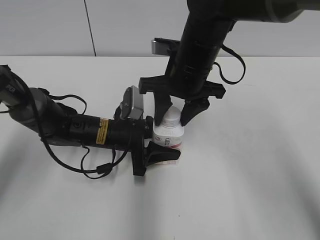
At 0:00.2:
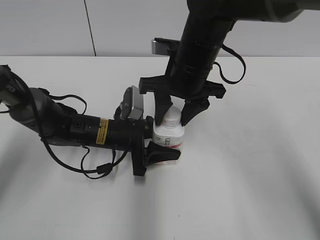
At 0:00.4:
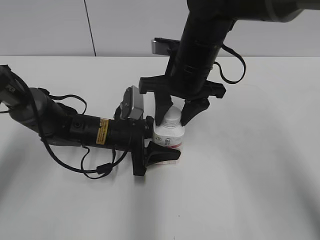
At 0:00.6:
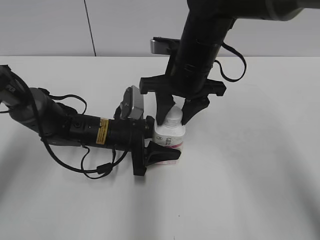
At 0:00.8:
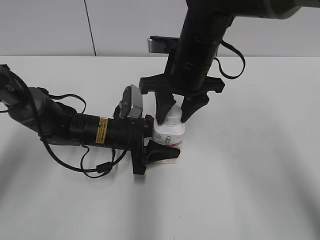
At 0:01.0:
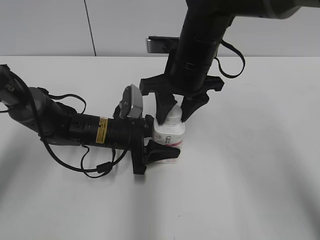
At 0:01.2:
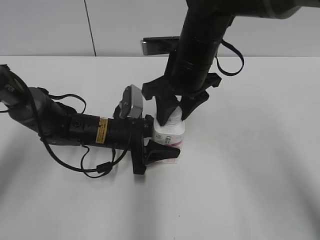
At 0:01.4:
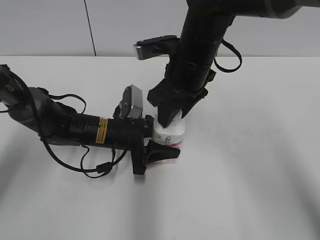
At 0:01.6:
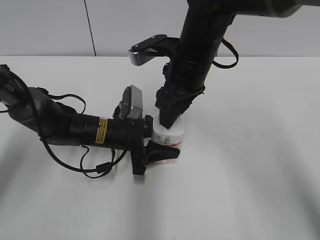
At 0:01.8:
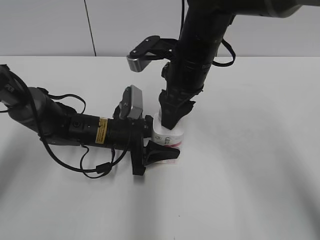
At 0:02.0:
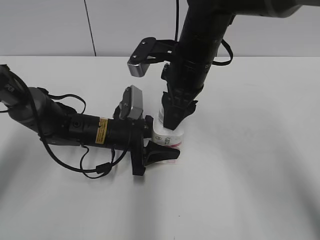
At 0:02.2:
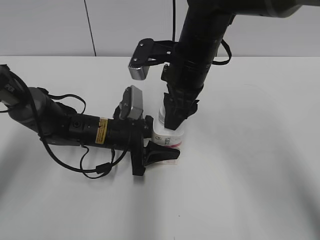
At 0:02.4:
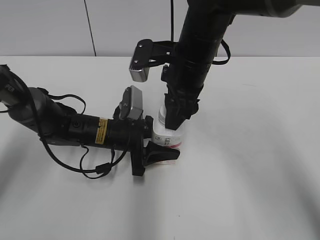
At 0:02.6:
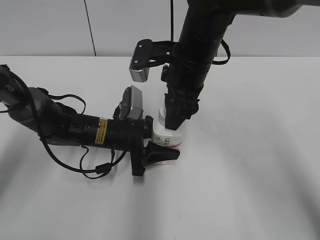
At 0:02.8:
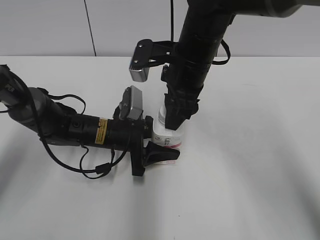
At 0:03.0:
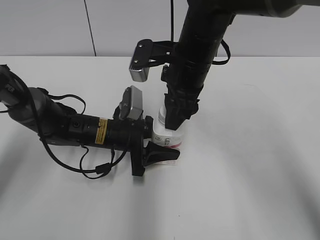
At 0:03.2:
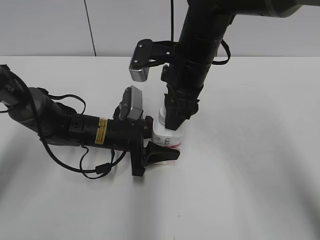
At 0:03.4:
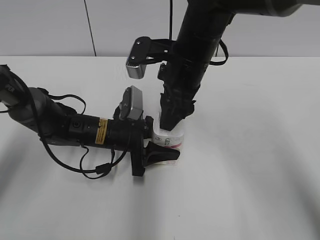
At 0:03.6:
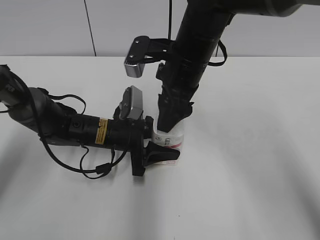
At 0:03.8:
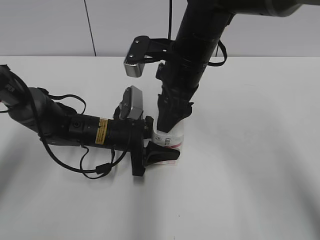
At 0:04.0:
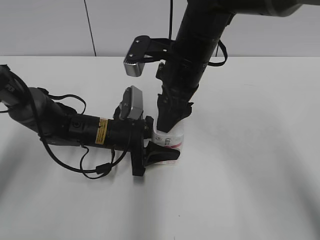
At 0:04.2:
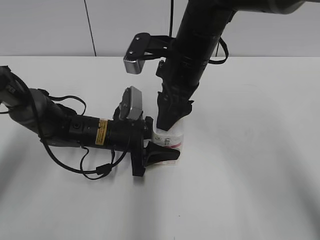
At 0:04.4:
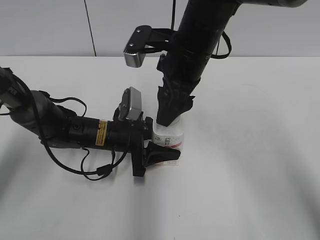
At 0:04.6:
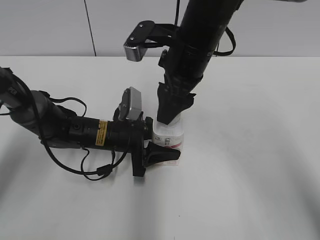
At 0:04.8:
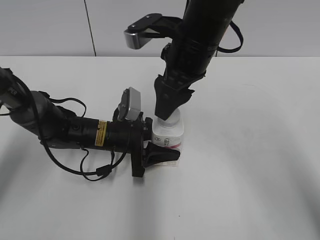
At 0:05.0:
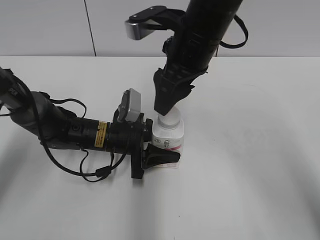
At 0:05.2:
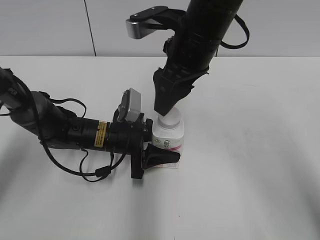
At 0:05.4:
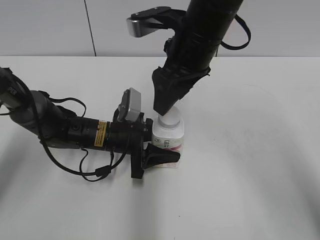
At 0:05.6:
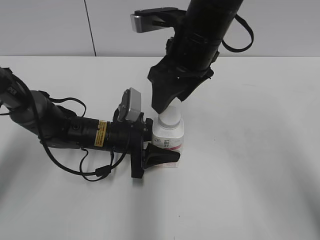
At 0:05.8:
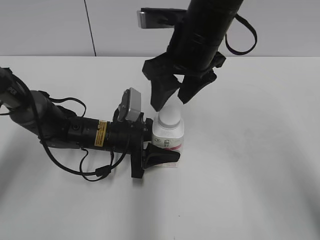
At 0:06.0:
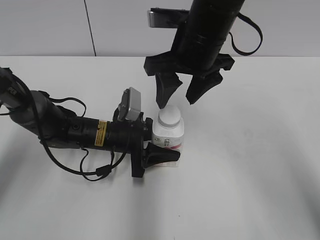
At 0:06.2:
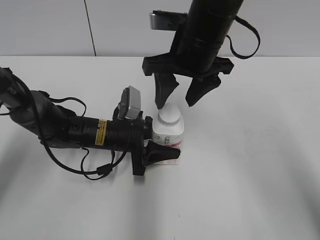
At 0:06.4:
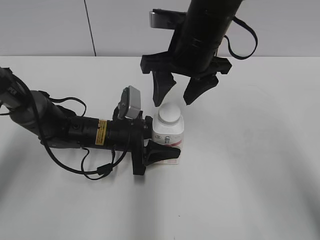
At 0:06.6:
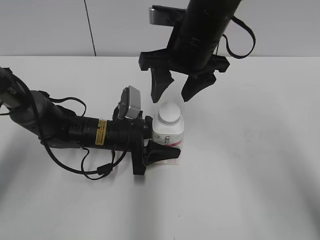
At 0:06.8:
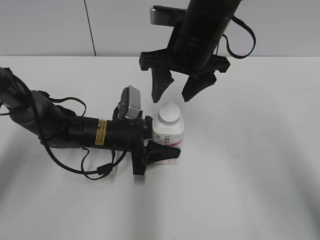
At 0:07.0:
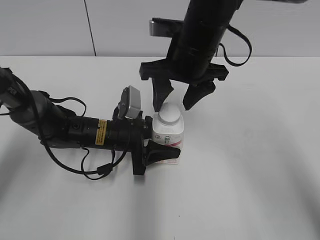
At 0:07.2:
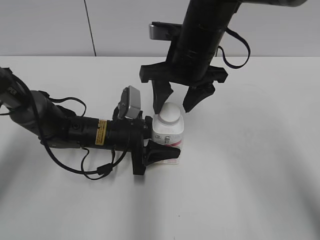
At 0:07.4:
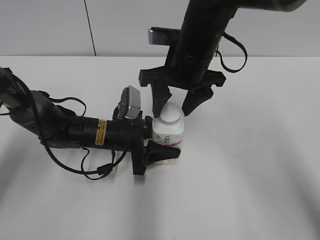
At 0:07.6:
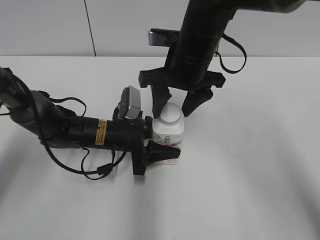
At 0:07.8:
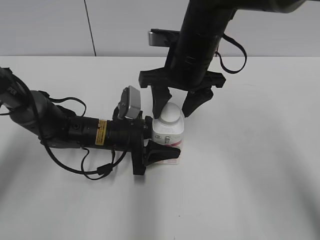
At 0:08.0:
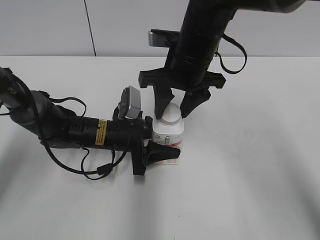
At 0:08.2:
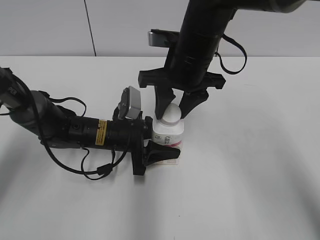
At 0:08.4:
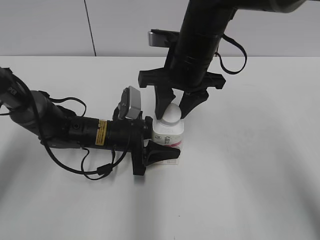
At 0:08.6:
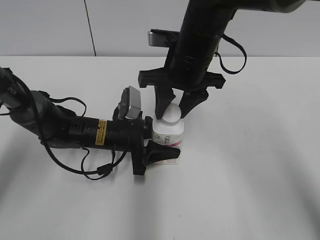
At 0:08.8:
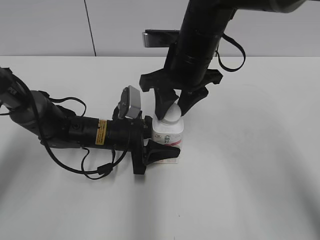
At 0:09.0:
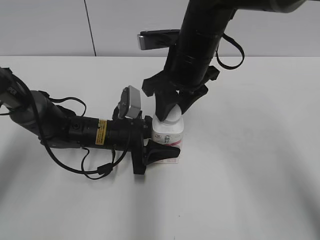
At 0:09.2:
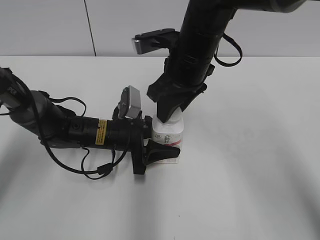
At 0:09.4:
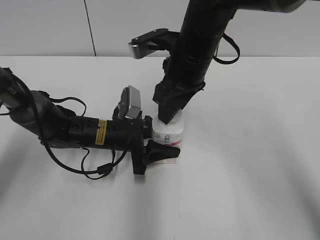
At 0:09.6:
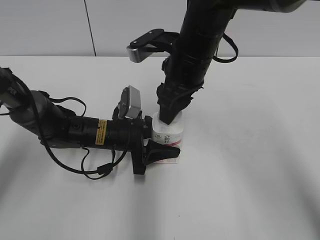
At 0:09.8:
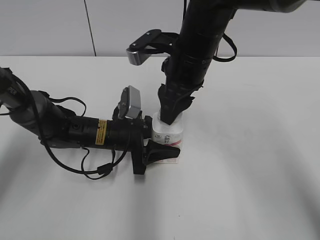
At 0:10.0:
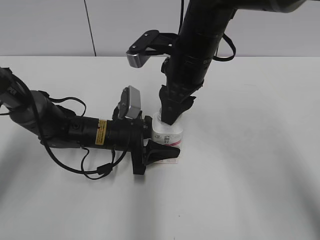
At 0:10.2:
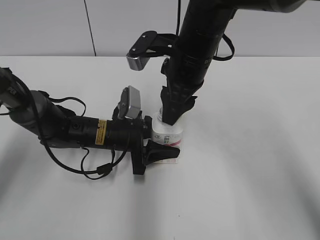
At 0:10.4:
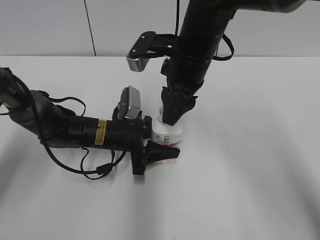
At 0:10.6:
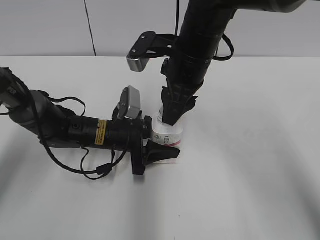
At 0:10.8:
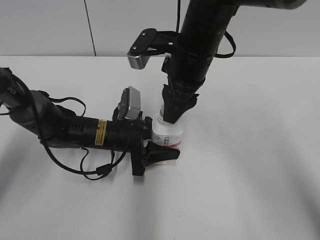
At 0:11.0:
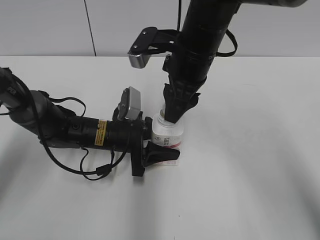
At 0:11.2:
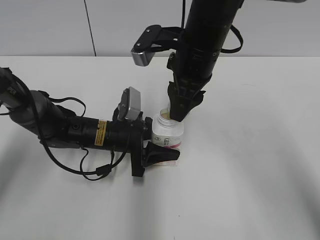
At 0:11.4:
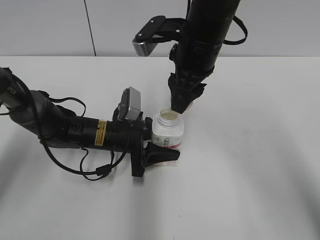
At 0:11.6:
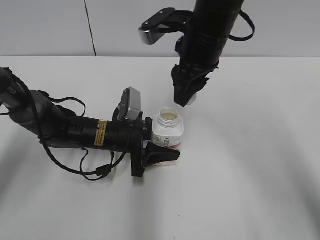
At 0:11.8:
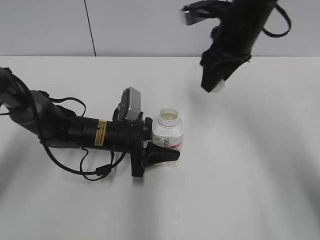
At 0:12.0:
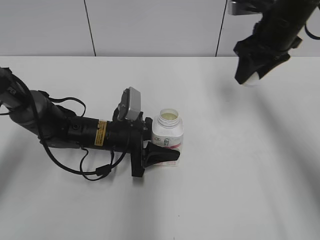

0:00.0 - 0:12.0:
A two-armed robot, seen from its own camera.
0:03.0 - 0:04.4: The right gripper opens up.
0:06.0 - 0:07.6: The grippers stay close to where they were, moving slightly.
0:07.6 - 0:09.0: The right gripper closes up.
0:10.4 - 0:12.0: The right gripper is displaced to the right and forward by approximately 15 cm.

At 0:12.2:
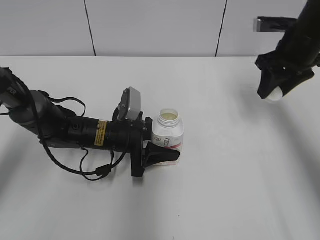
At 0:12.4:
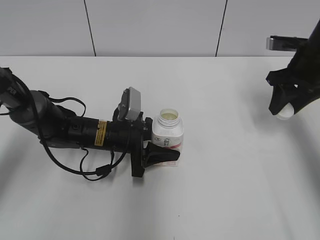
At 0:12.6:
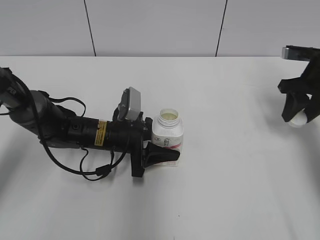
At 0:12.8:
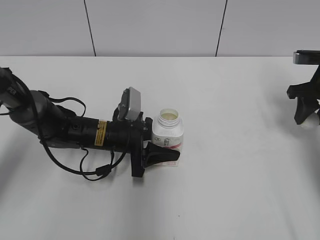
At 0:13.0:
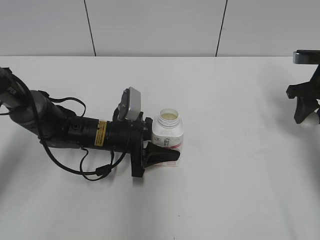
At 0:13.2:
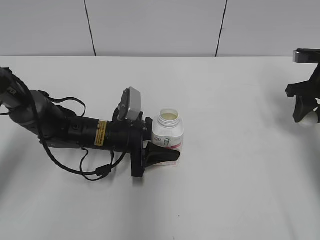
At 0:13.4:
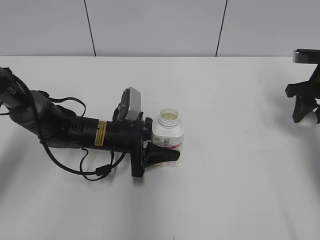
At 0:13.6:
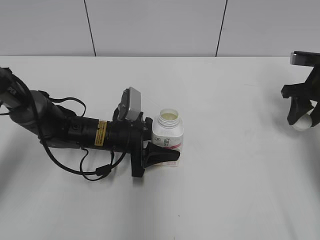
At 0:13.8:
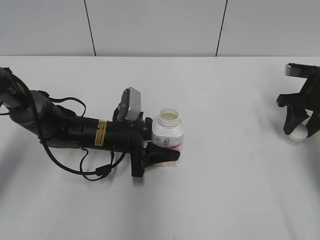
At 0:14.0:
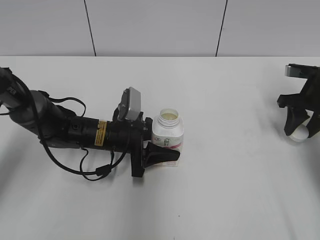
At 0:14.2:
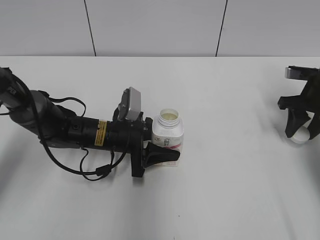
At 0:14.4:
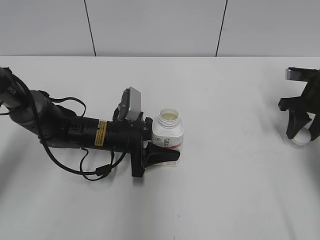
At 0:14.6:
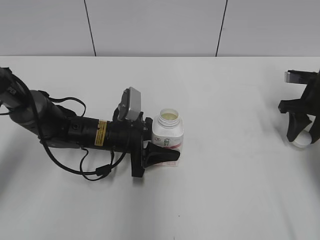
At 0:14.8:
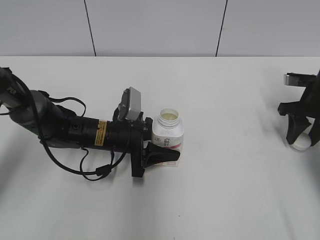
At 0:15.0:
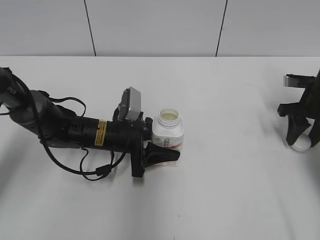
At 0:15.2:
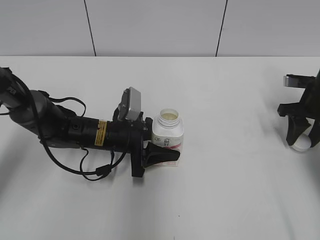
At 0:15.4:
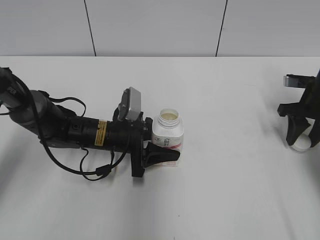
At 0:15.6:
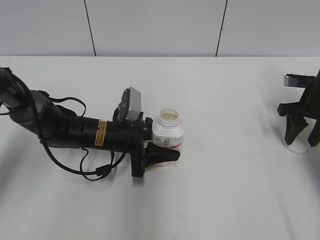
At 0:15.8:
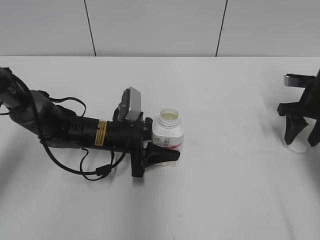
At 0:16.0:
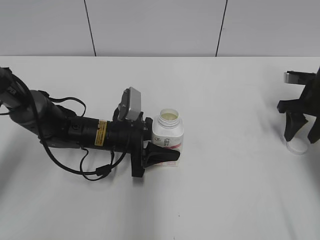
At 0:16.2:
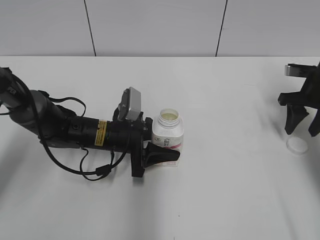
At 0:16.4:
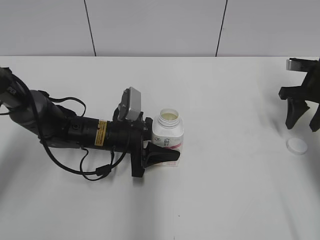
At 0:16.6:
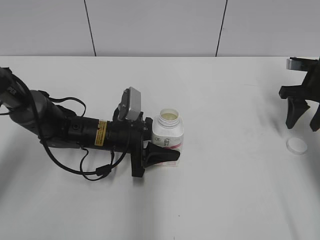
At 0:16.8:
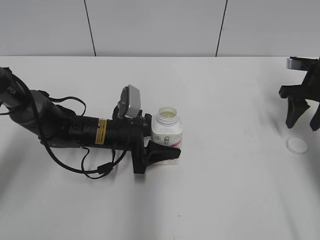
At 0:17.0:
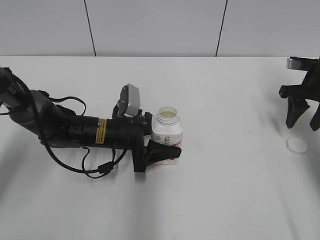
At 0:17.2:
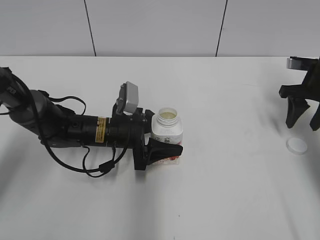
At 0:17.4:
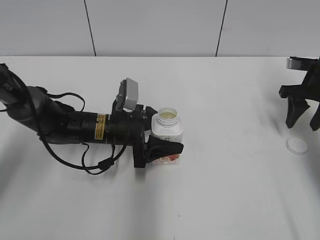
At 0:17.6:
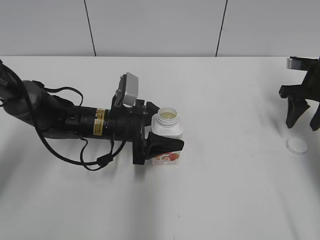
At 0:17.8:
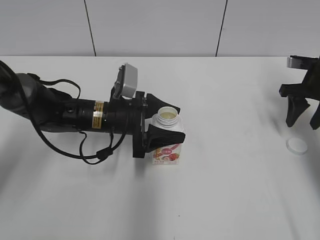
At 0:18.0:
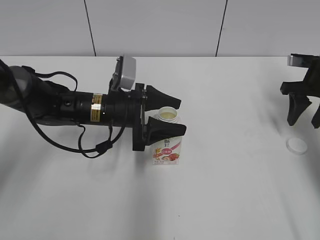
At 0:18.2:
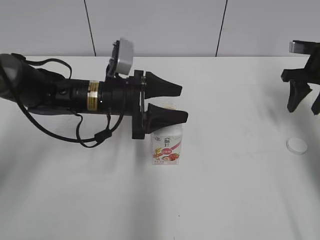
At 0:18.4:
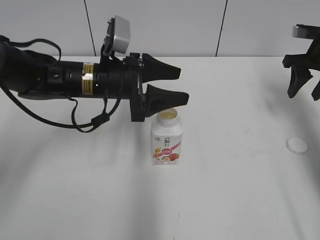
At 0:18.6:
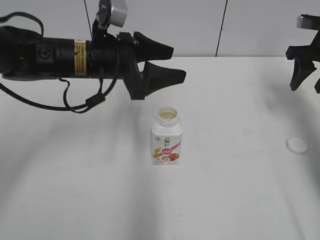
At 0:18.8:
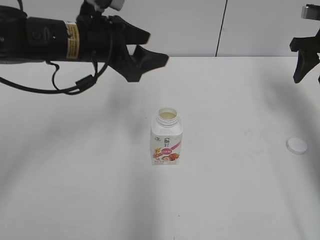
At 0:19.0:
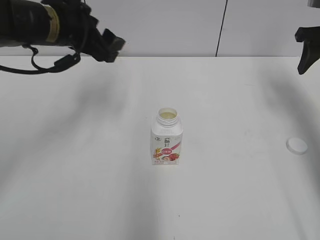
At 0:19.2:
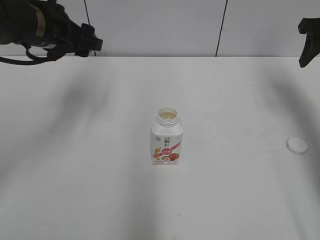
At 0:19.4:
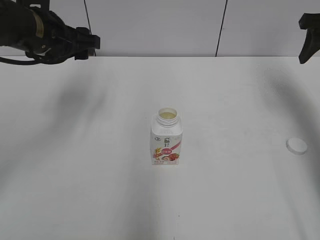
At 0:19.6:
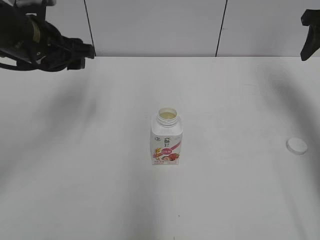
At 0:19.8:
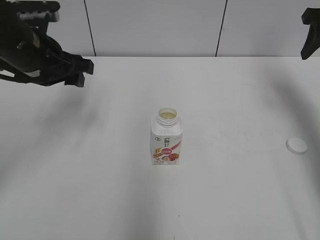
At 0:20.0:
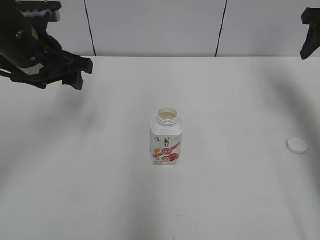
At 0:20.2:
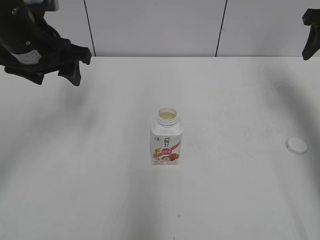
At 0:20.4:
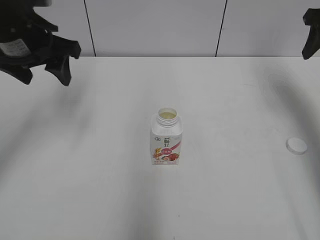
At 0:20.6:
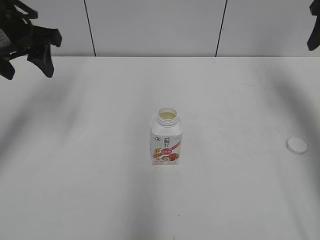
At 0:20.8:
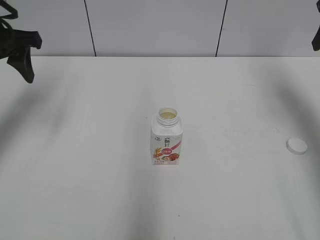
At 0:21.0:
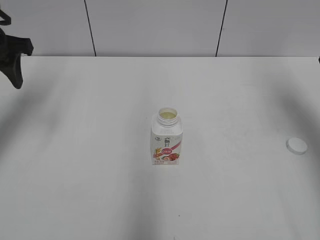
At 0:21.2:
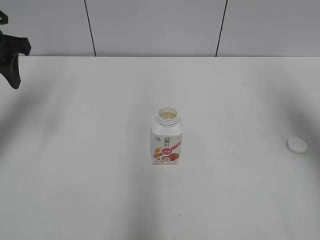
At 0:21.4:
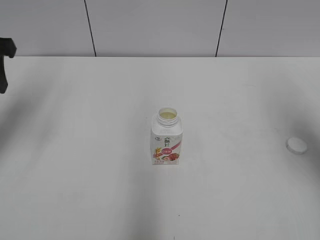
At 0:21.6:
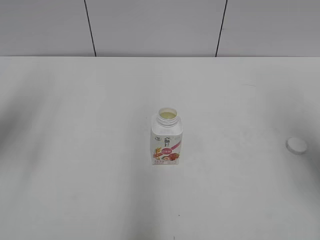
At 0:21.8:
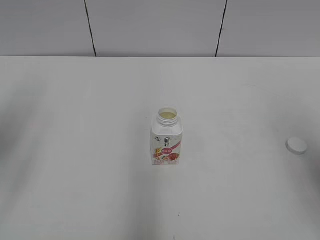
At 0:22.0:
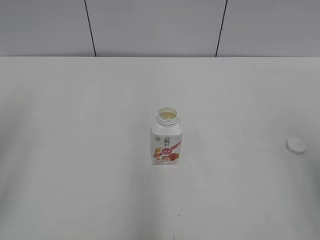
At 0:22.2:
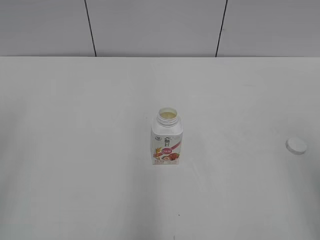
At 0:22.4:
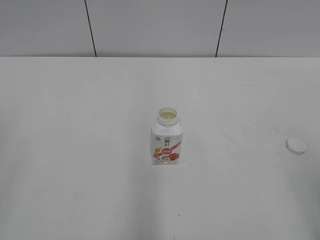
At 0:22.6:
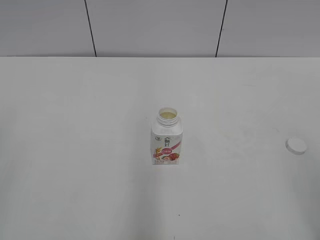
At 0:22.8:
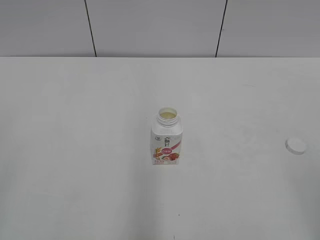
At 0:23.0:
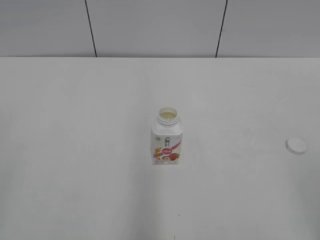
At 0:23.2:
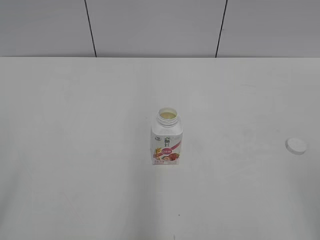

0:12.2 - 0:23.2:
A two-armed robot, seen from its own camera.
Step, 0:12.2 - 0:15.6: Place the bottle cap on the right.
0:12.2 - 0:13.8: The right gripper heads downward and to the right, covering roughly 10 cm.
0:13.8 - 0:15.4: There are only small adjustments of the grippers.
0:15.4 - 0:17.0: The right gripper opens.
0:17.0 - 0:18.4: The left gripper moves upward, about 10 cm. The right gripper changes place by some 5 cm.
0:18.4 - 0:20.0: The left gripper travels to the left and upward by roughly 15 cm, while the right gripper travels upward by approximately 10 cm.
0:20.0 - 0:21.6: The right gripper is displaced backward by about 20 cm; the left gripper moves to the left, backward and upward, some 15 cm.
0:21.6 - 0:23.2: Both grippers move backward, roughly 25 cm.
